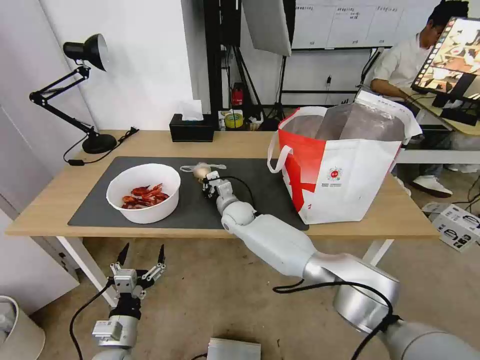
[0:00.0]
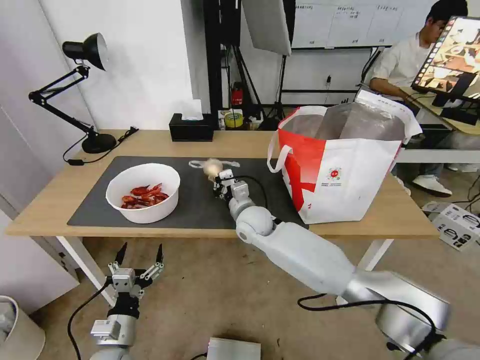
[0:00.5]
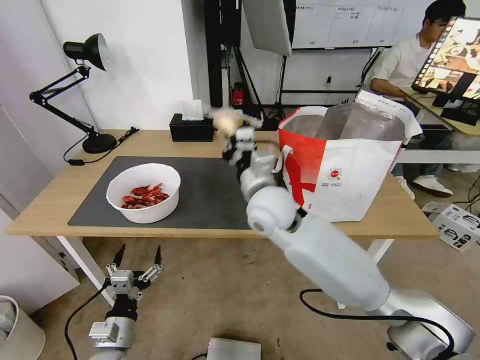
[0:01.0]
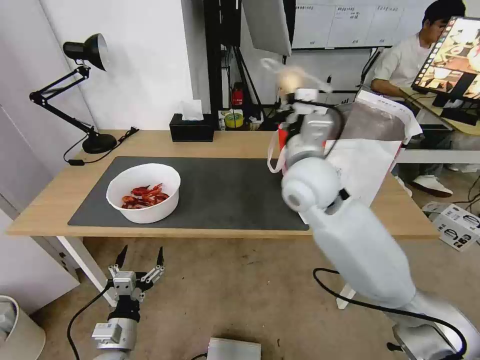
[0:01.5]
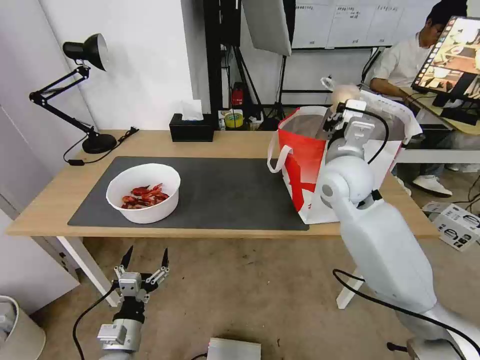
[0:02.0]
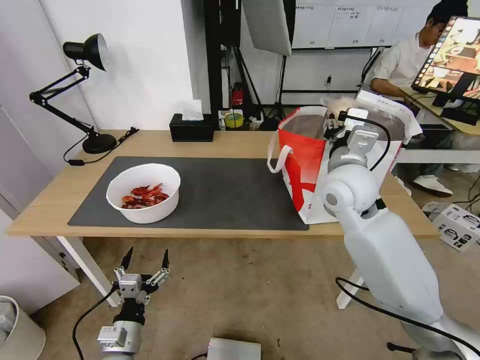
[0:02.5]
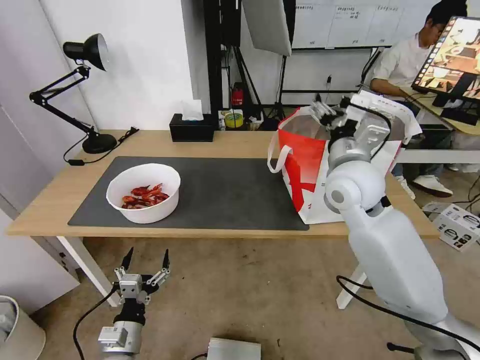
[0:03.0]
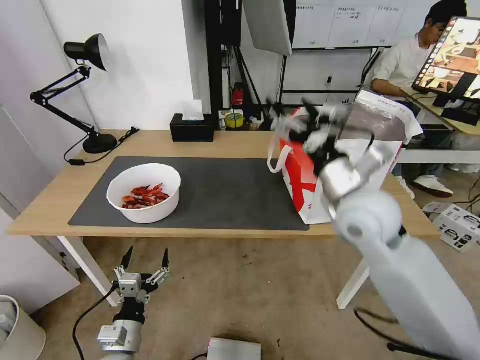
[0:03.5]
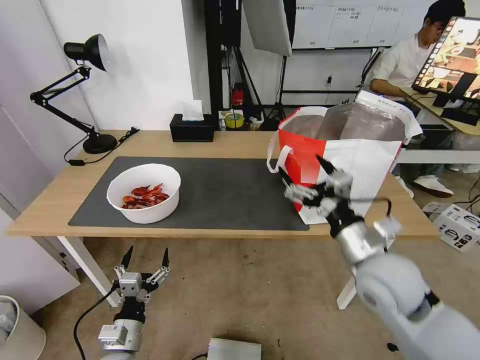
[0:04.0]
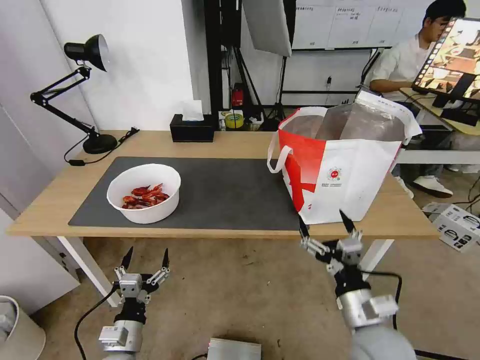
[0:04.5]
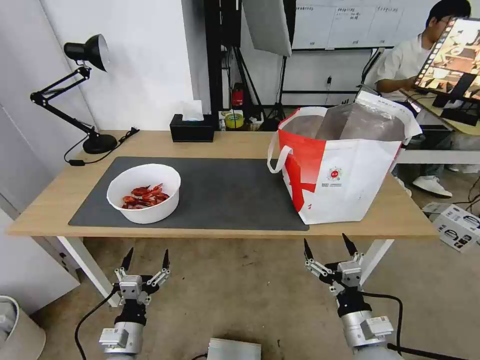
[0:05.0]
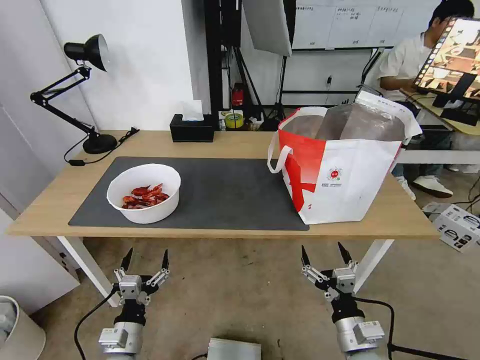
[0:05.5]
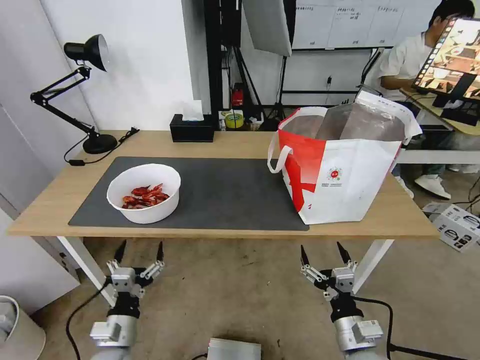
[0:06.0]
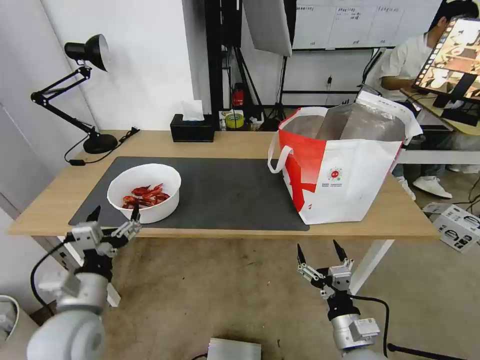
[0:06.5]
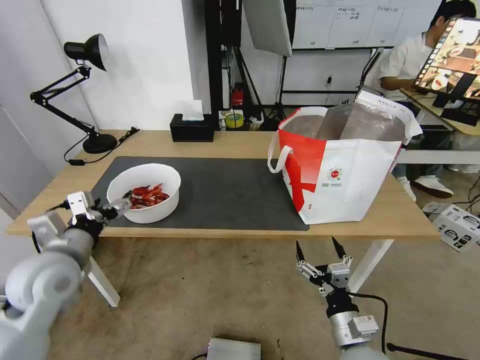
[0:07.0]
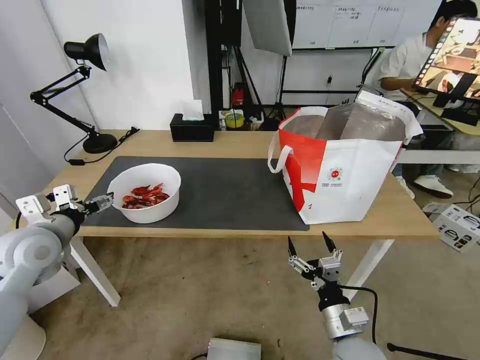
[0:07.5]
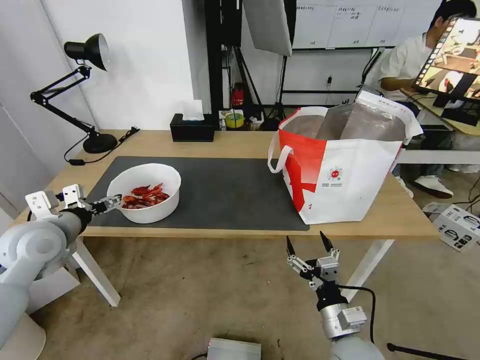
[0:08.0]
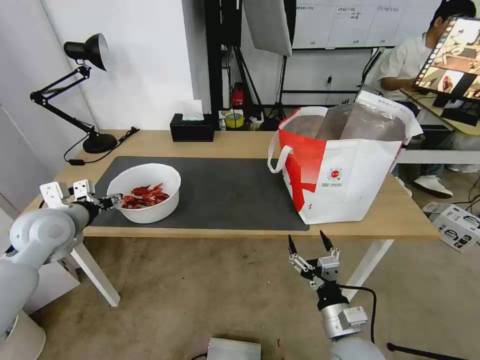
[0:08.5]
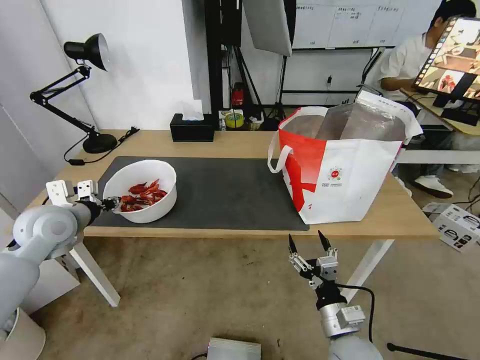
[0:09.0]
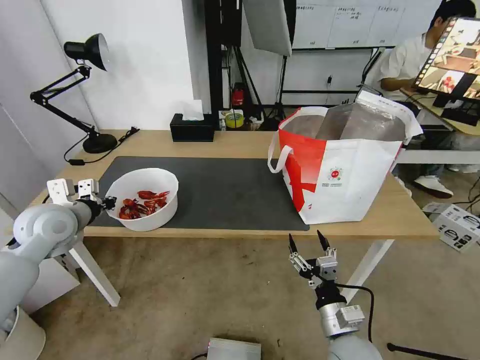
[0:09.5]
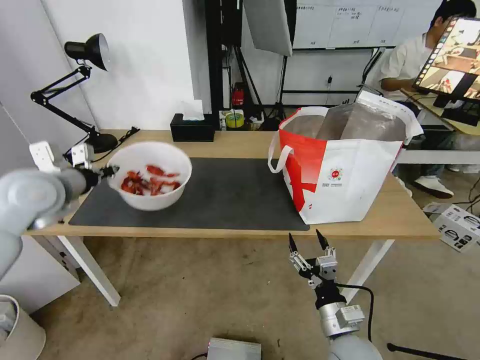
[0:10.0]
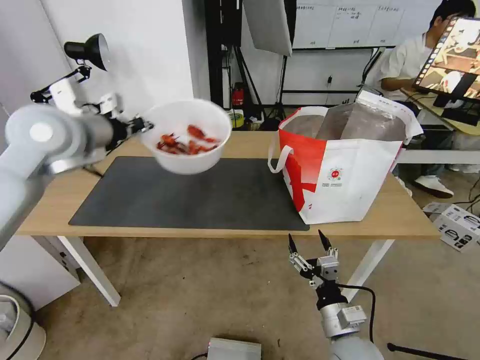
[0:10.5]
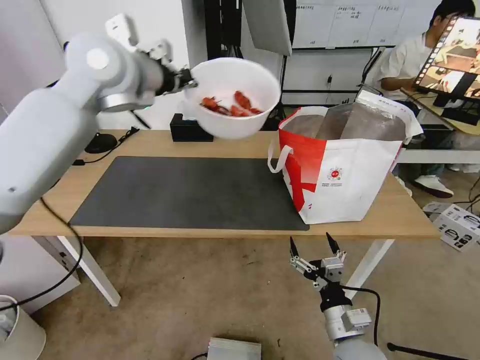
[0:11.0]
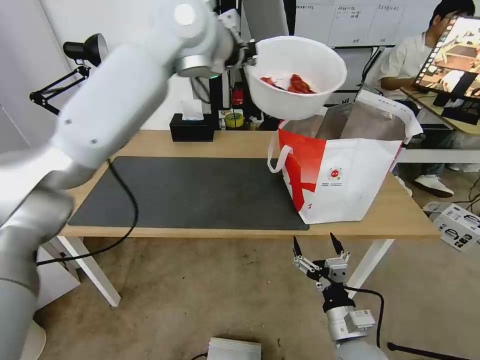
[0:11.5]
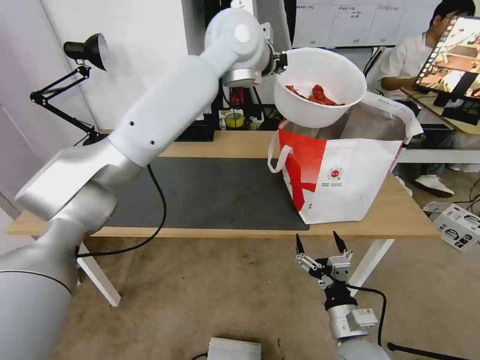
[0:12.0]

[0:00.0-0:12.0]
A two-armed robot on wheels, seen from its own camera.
Task of the whole recording: Pick up the trash from the table and place it into the takeout bag.
0.0 to 2.0 s: The right gripper goes about 35 cm upward, to the right and backward.
2.0 to 4.0 s: The right gripper is displaced backward and downward by roughly 20 cm, and opens.
4.0 to 6.0 s: The right gripper is displaced downward and backward by some 20 cm.
6.0 to 8.0 s: The left gripper travels upward, forward and to the left by about 30 cm.
8.0 to 10.0 s: The left gripper shifts some 10 cm upward, and closes up.
10.0 to 12.0 s: The left gripper shifts some 40 cm to the right, upward and forward.

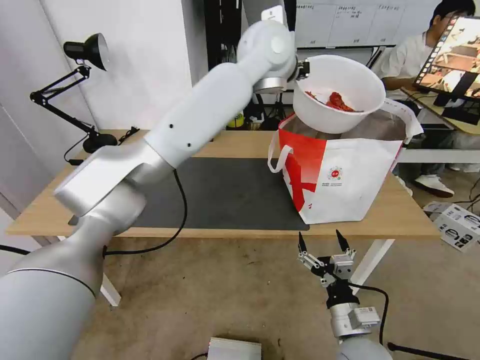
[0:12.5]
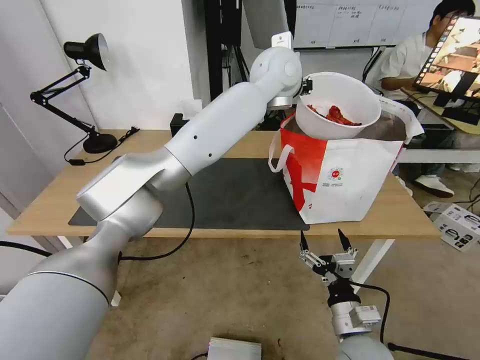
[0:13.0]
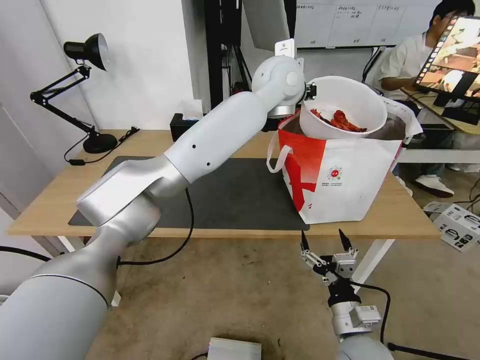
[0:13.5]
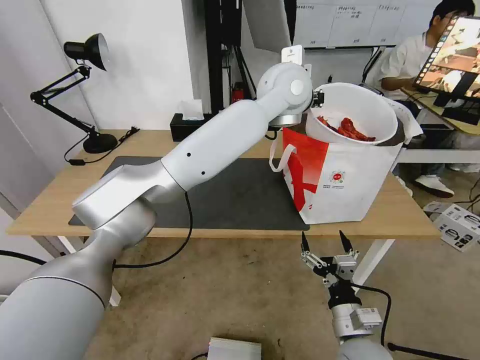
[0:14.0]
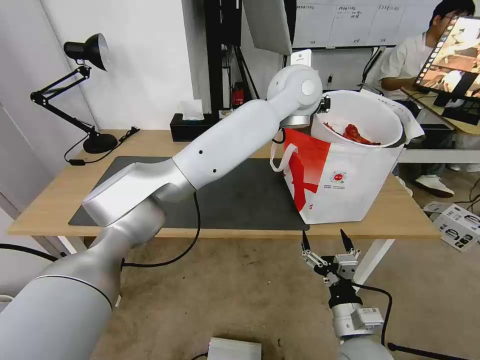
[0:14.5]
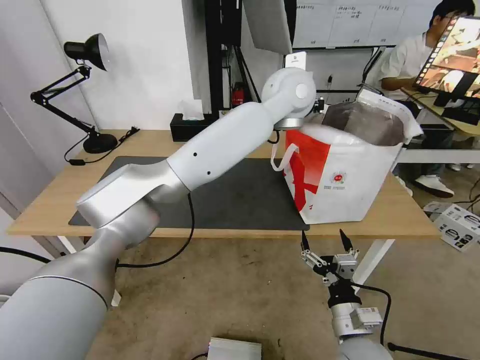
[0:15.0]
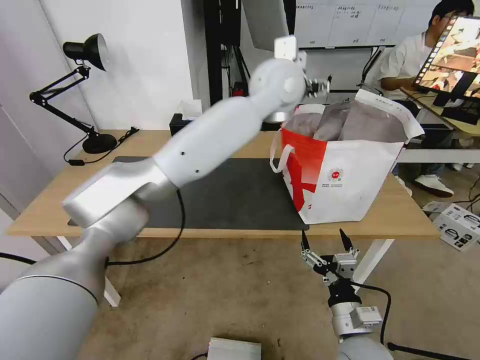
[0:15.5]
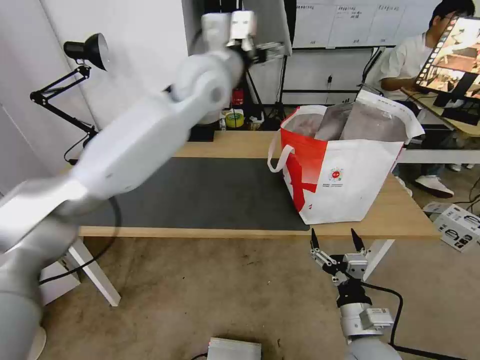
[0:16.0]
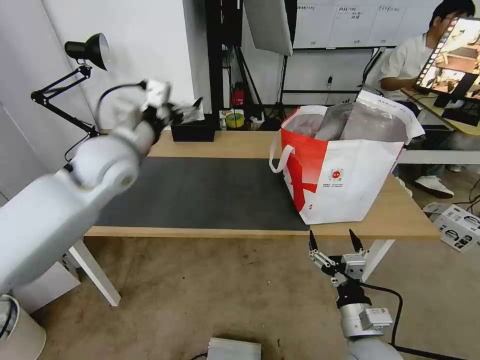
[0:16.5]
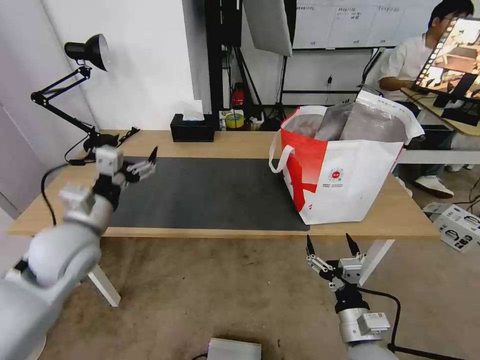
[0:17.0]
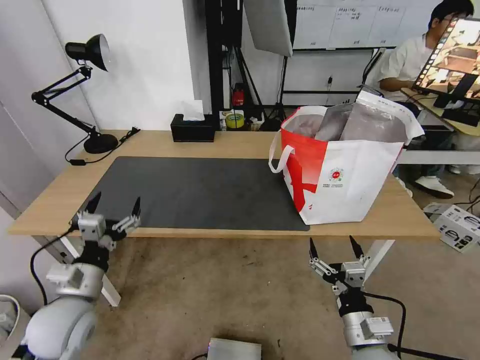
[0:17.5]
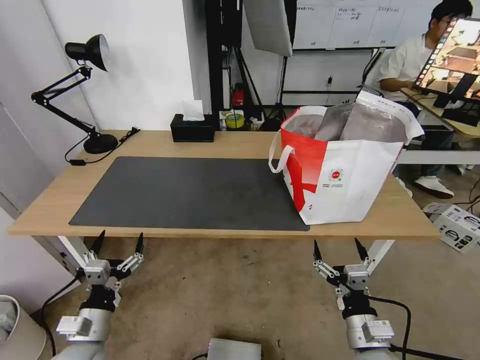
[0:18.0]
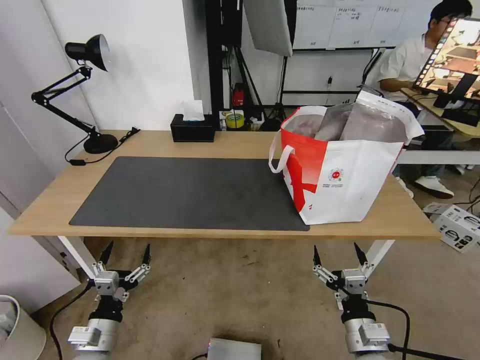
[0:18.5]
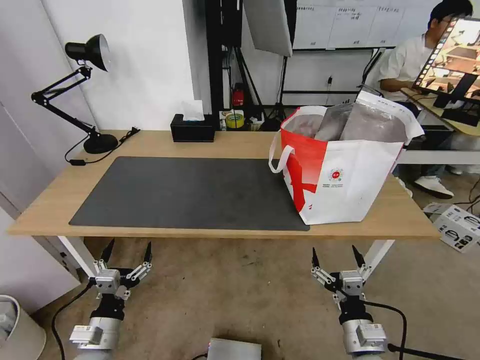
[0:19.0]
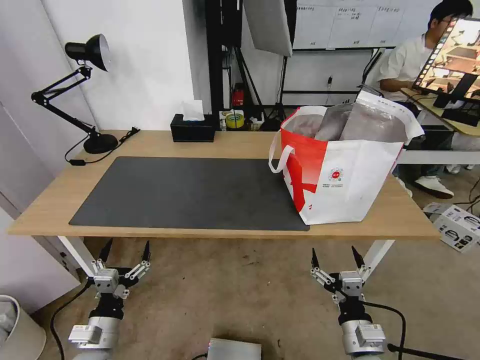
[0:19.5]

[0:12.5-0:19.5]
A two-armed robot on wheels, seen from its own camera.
Task of the whole recording: Pick up the trash from the table and place it into the takeout bag.
12.5 to 14.5 s: The left gripper shifts some 10 cm downward and to the right.
14.5 to 16.0 s: The left gripper goes about 15 cm to the left, and opens up.
16.0 to 17.5 s: The left gripper moves downward, backward and to the left, about 50 cm.
17.5 to 19.5 s: The left gripper travels downward and backward by approximately 10 cm.

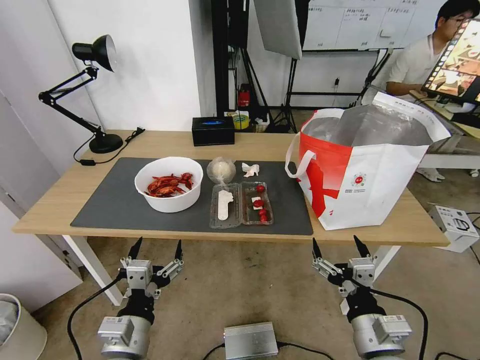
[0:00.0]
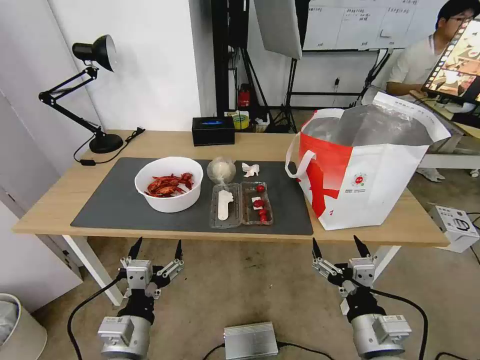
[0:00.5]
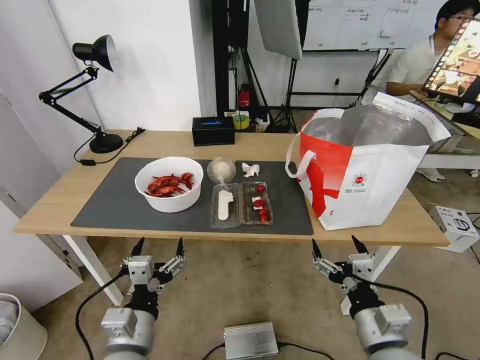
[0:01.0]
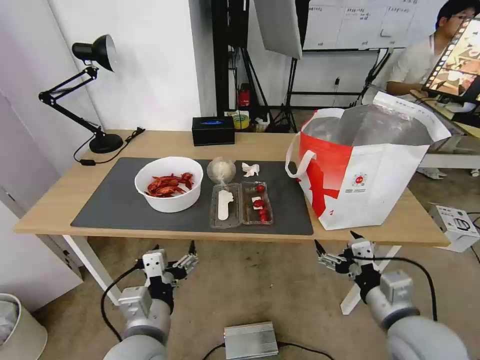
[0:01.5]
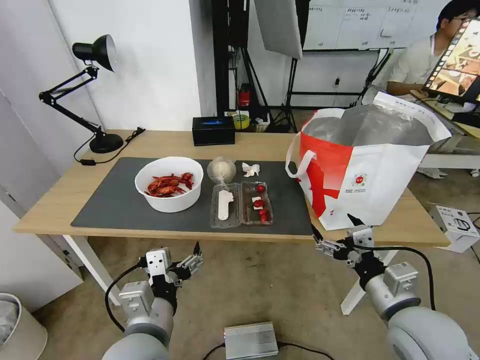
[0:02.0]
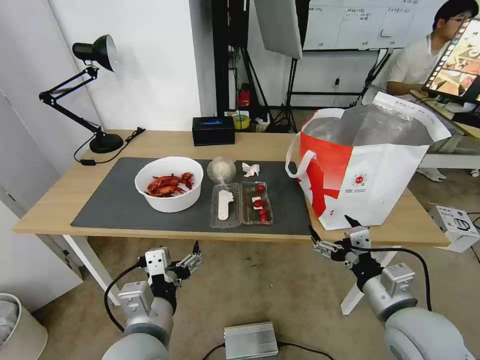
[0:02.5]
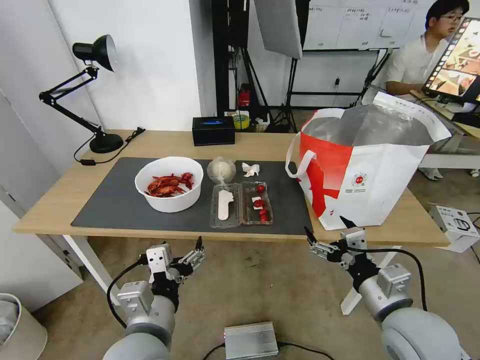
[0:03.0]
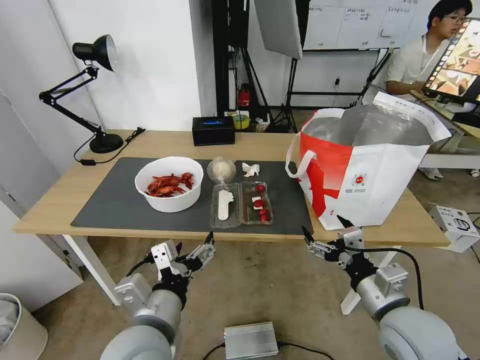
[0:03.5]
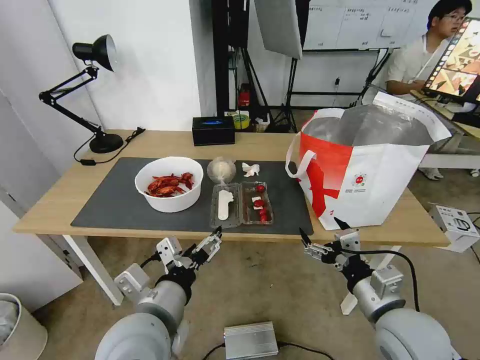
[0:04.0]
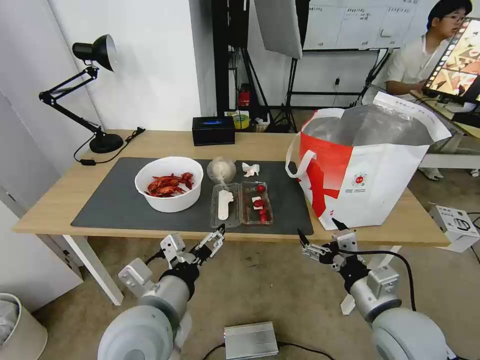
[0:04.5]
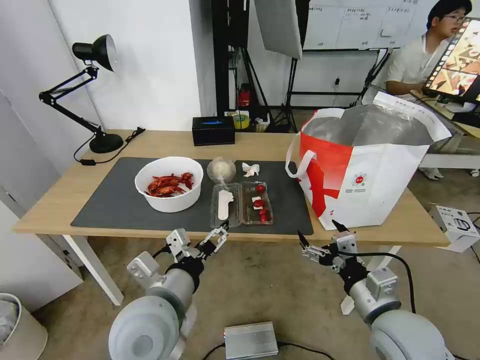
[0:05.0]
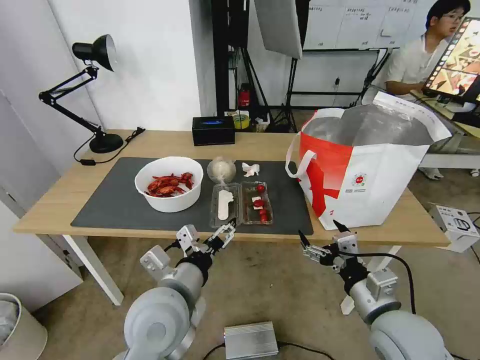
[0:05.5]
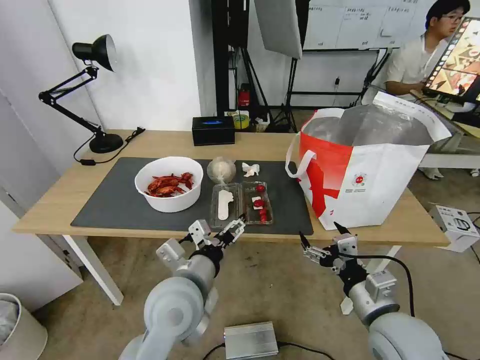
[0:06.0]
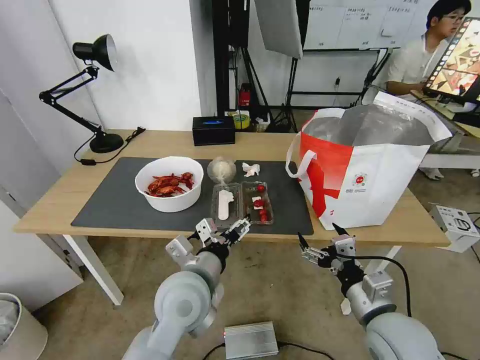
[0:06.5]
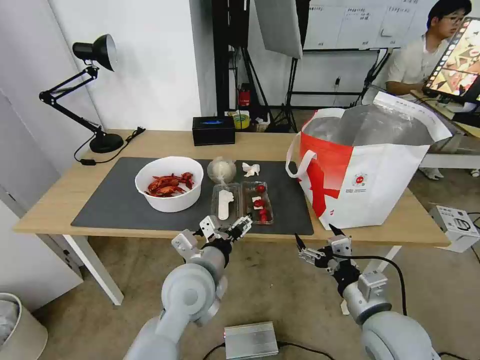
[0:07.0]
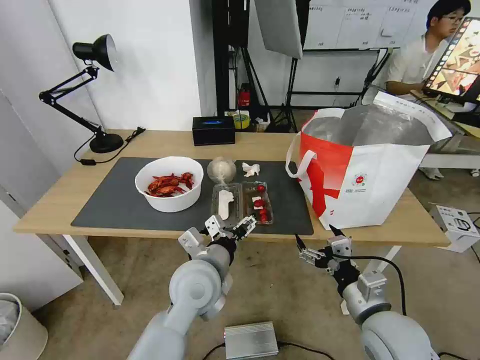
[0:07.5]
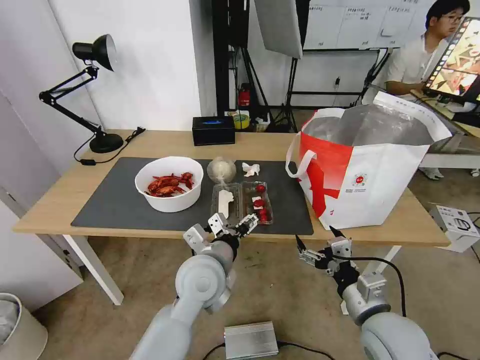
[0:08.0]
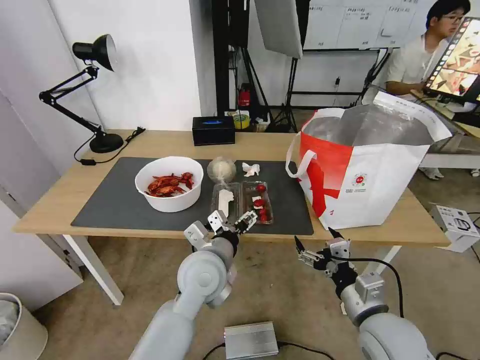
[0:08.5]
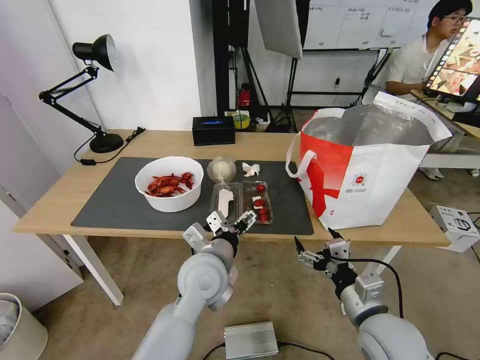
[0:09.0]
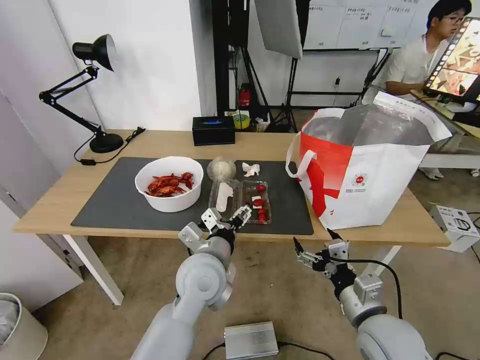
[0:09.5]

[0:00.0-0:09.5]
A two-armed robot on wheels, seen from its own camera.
Task of the whole recording: Pick up the trash from the table and place it into the takeout bag.
4.0 to 5.5 s: There are only small adjustments of the grippers.
5.5 to 7.5 s: The left gripper goes some 5 cm forward.
7.5 to 9.5 s: The grippers make only small movements.
